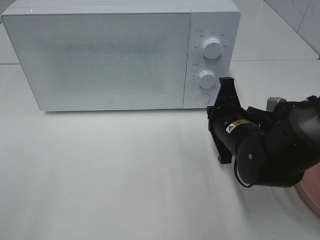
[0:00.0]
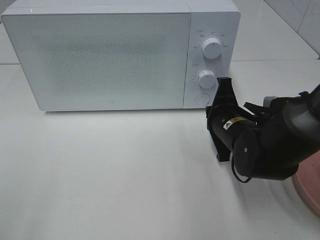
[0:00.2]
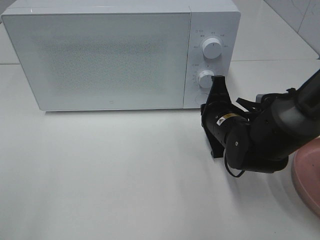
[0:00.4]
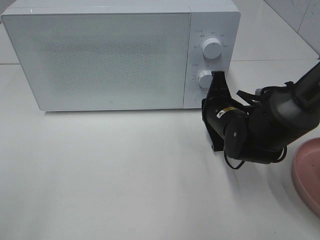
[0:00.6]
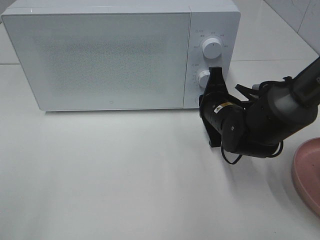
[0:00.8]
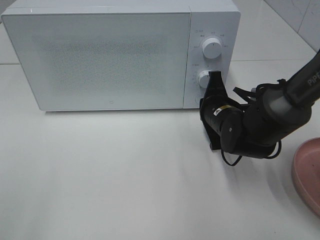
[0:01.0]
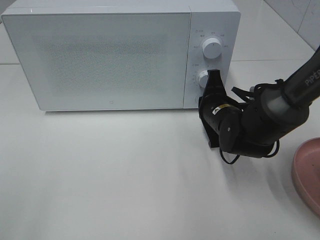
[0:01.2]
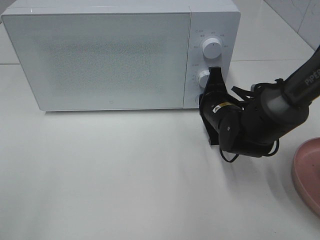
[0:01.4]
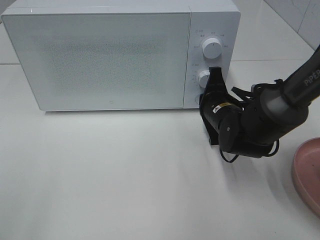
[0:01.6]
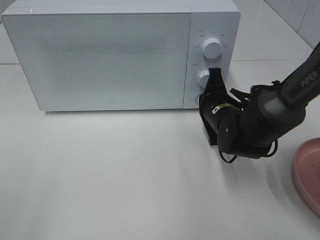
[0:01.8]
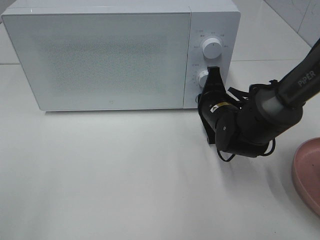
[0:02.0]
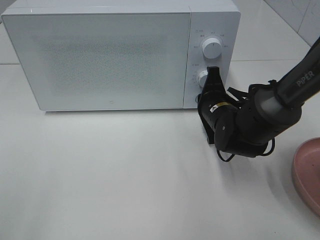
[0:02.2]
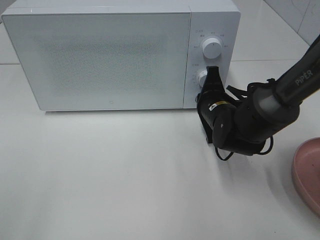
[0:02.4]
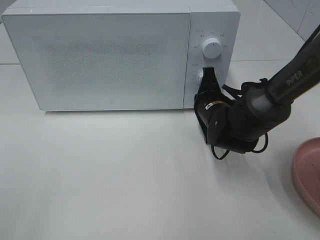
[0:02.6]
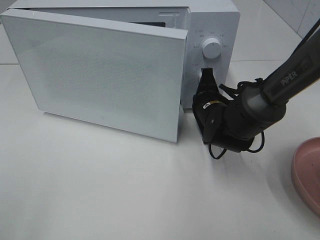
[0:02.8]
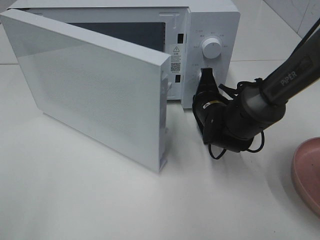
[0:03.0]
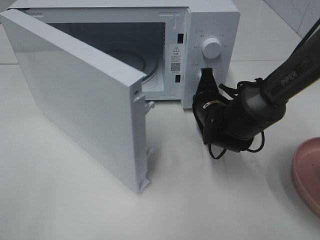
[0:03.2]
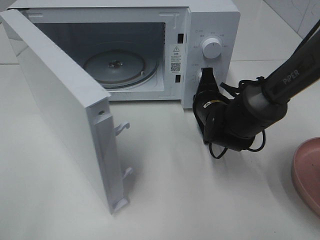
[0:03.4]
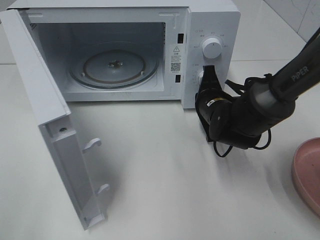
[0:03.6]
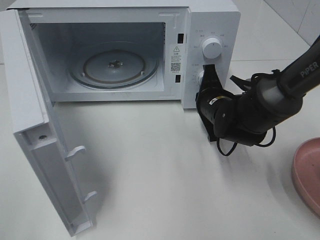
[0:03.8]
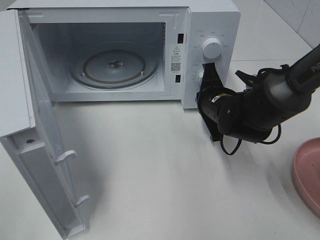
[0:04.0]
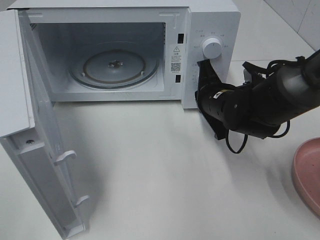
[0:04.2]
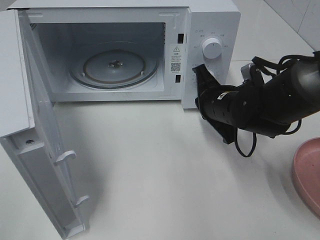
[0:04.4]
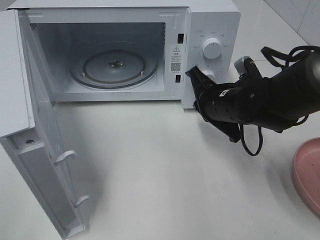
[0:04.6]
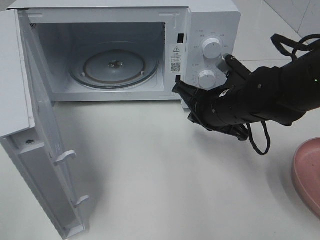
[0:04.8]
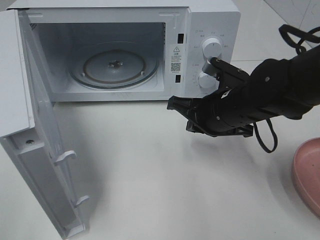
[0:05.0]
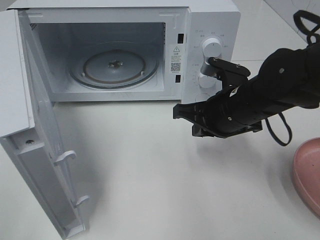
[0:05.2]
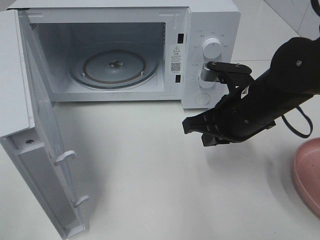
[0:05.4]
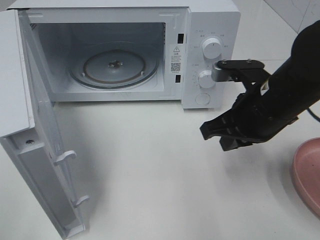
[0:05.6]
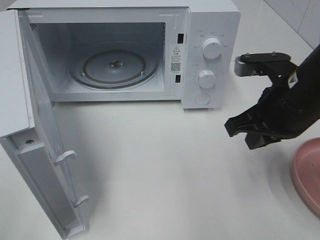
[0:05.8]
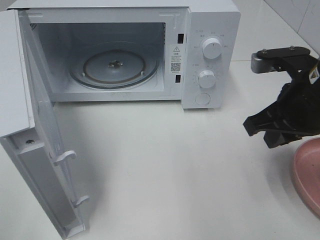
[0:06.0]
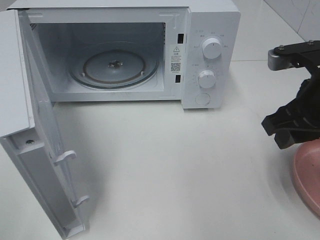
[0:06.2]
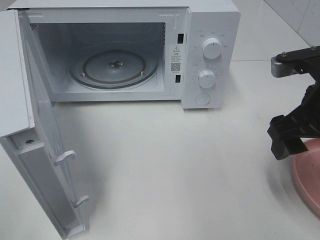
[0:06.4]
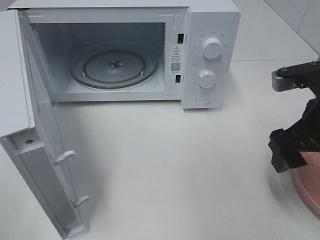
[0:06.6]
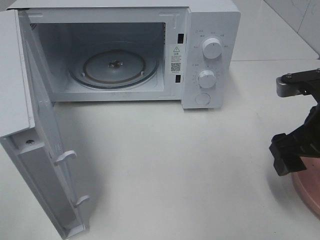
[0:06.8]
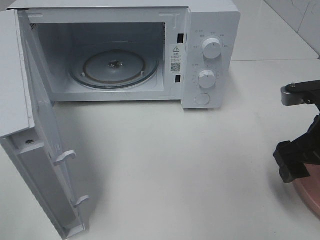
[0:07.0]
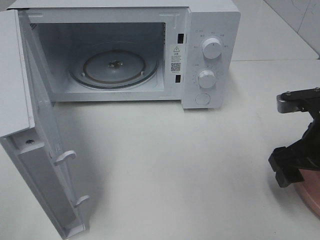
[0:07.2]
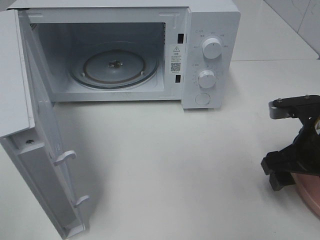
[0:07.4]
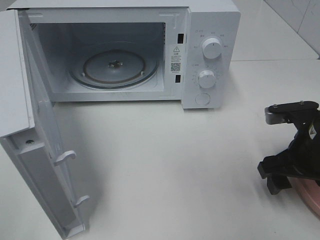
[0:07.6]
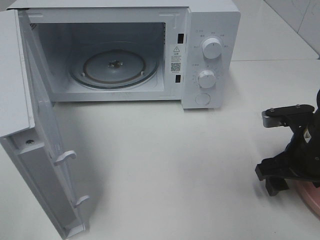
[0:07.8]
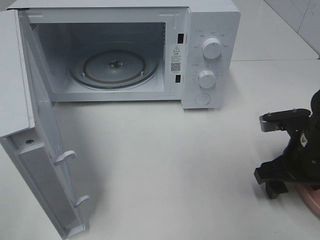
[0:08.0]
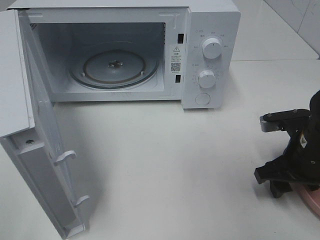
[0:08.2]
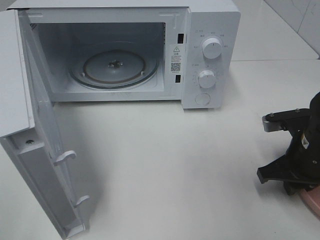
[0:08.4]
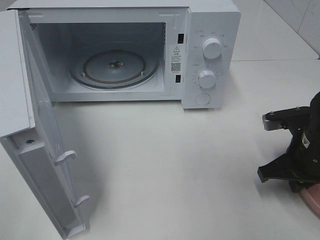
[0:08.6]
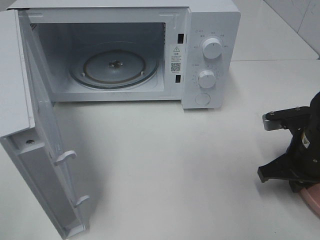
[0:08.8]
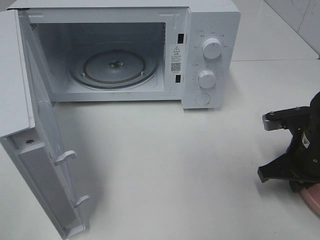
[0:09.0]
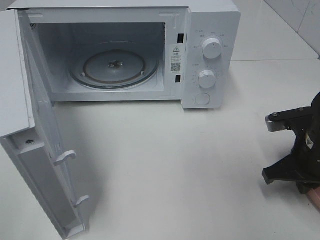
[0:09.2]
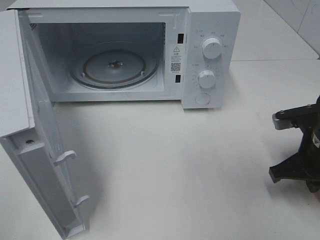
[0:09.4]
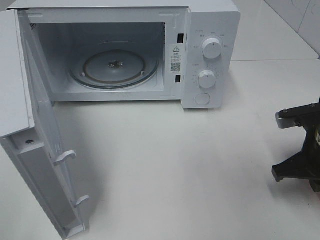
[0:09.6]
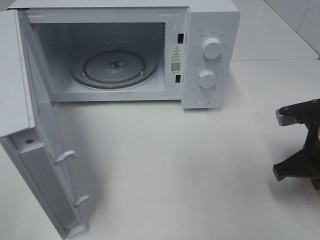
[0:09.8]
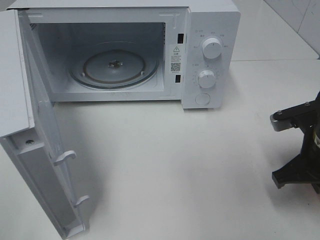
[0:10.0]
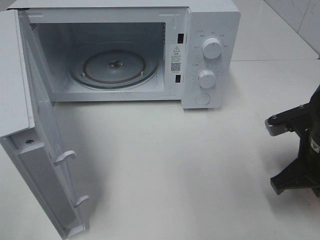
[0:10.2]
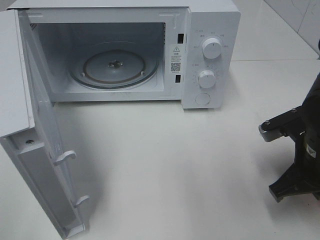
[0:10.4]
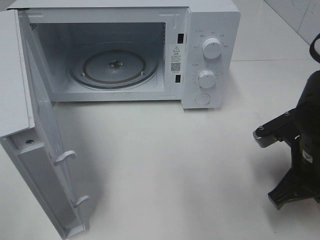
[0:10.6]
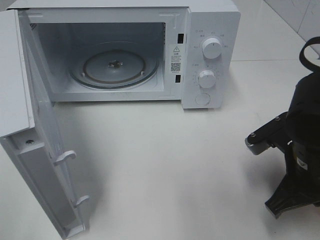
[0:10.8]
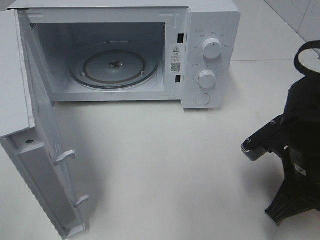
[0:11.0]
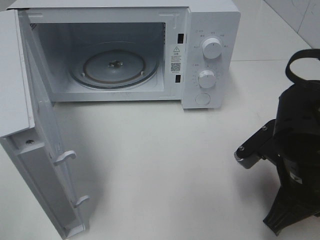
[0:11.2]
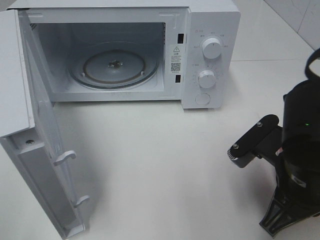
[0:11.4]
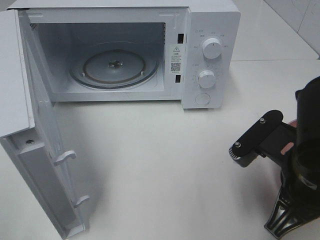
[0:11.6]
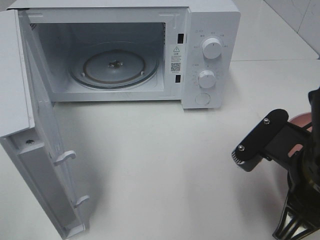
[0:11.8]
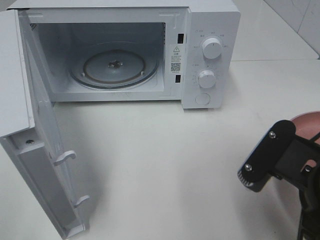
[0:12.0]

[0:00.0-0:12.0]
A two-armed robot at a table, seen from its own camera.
Task of the whole recording: Heat the burger.
Step, 0:00.0 to 0:04.0: Right hand: press the switch.
Step, 0:04.2 to 0:09.2: Right hand: grab the plate with the hamburger.
0:00.0 to 0:01.6: The right gripper shifts some 5 cm forward.
0:03.0 to 0:04.4: The right gripper changes place by roughly 5 cm.
0:04.4 to 0:06.0: The right gripper travels upward, backward and to the right by about 15 cm.
0:06.0 to 0:07.6: The right gripper shifts roughly 10 cm downward, and opens up.
0:07.6 to 0:09.0: The right gripper closes.
0:09.0 to 0:10.4: The grippers make only small movements.
0:10.4 to 0:12.0: The right gripper travels backward, upward and to the left by roughly 15 cm.

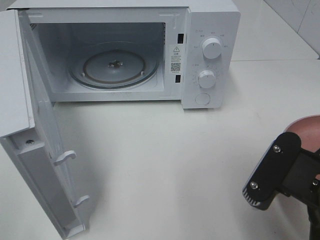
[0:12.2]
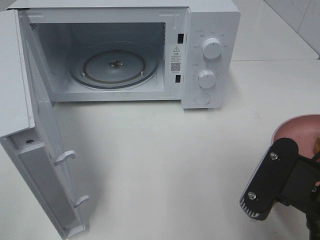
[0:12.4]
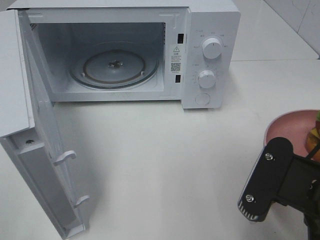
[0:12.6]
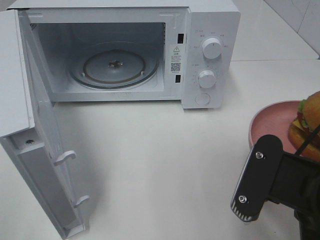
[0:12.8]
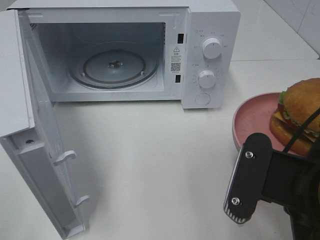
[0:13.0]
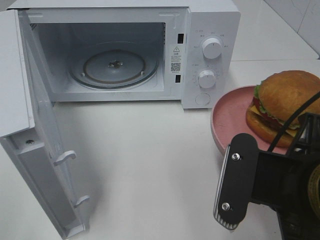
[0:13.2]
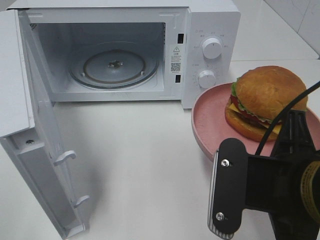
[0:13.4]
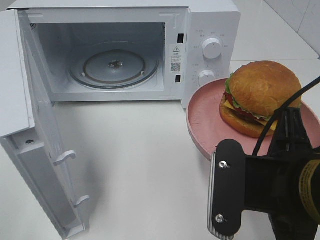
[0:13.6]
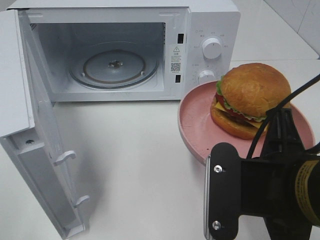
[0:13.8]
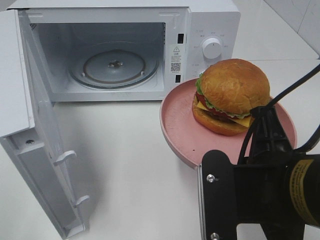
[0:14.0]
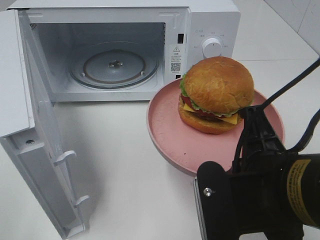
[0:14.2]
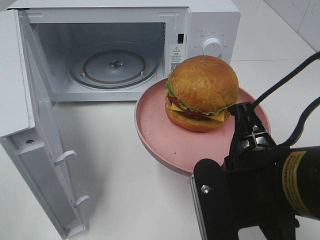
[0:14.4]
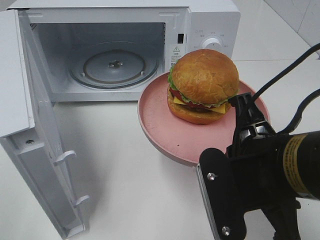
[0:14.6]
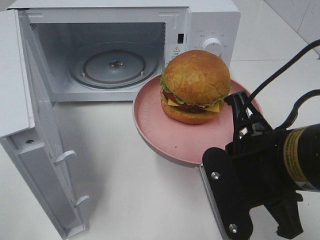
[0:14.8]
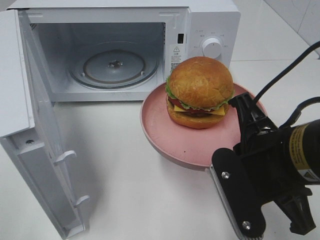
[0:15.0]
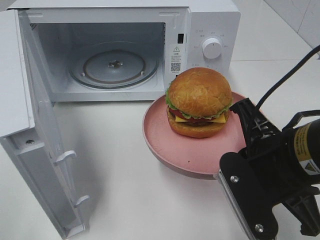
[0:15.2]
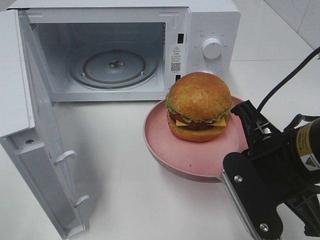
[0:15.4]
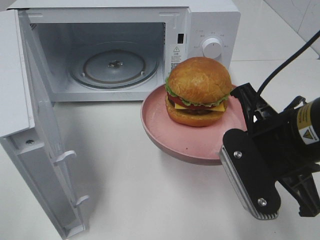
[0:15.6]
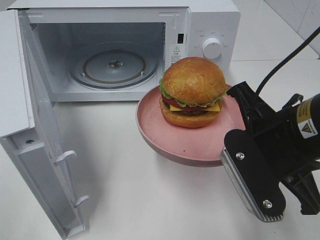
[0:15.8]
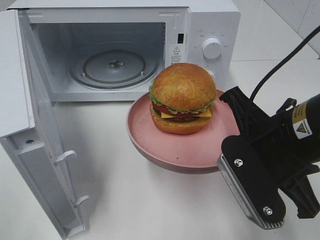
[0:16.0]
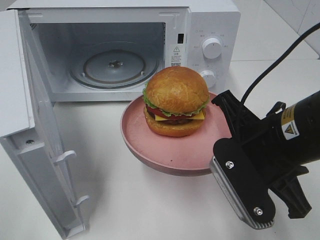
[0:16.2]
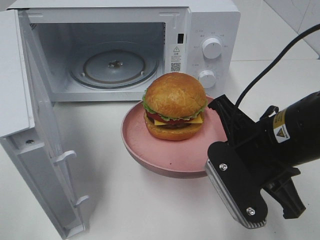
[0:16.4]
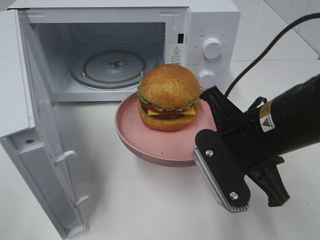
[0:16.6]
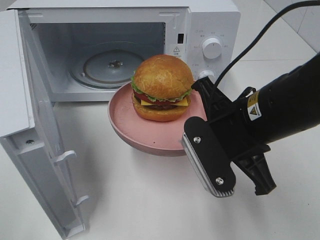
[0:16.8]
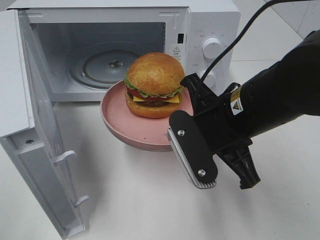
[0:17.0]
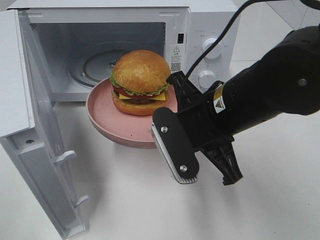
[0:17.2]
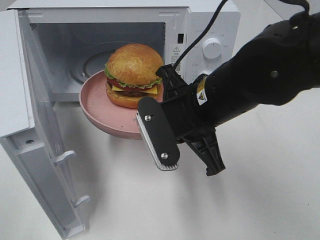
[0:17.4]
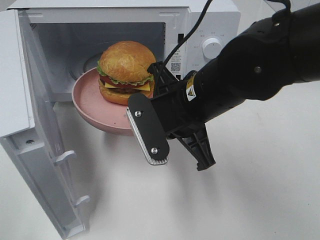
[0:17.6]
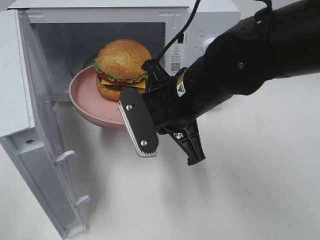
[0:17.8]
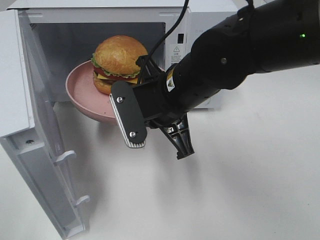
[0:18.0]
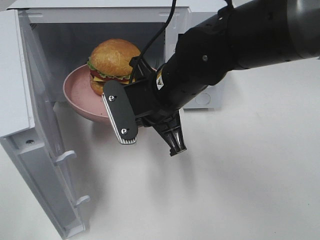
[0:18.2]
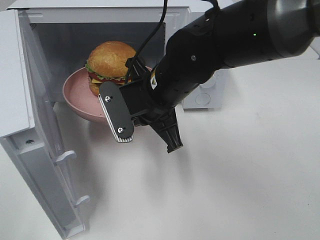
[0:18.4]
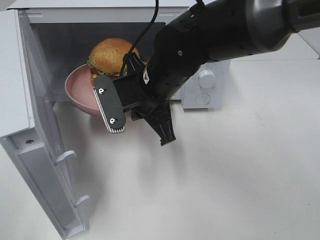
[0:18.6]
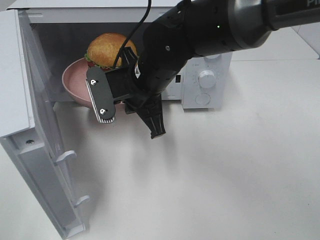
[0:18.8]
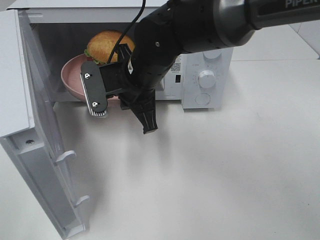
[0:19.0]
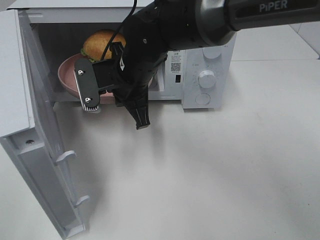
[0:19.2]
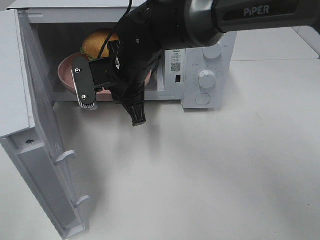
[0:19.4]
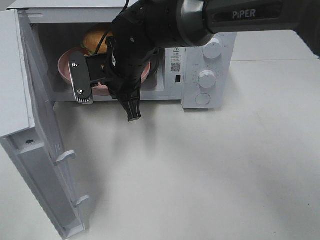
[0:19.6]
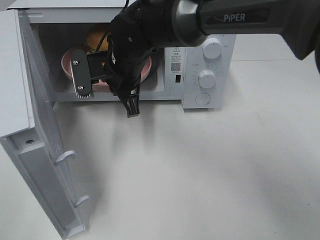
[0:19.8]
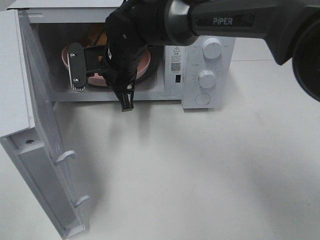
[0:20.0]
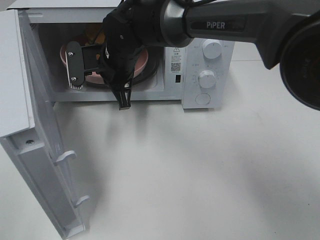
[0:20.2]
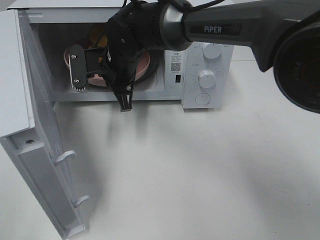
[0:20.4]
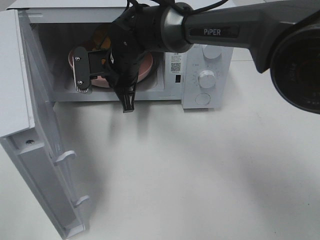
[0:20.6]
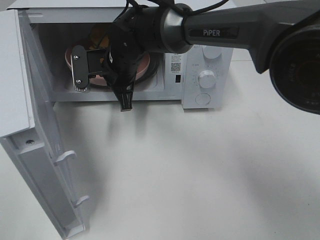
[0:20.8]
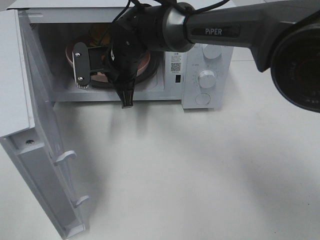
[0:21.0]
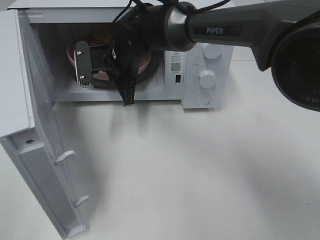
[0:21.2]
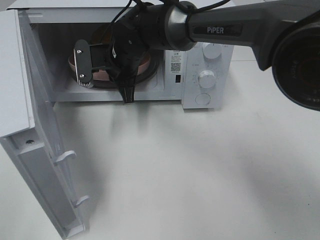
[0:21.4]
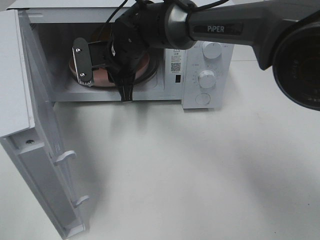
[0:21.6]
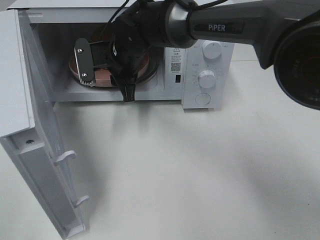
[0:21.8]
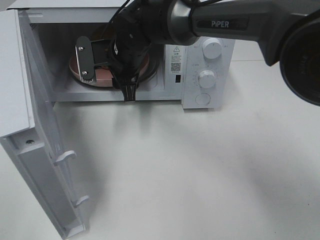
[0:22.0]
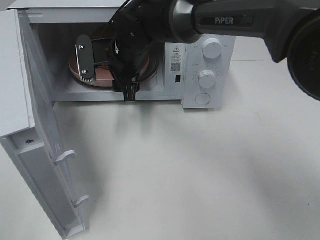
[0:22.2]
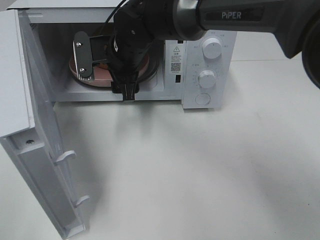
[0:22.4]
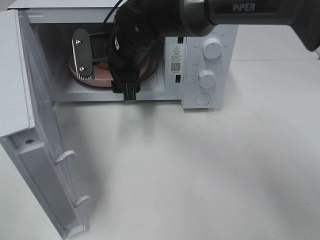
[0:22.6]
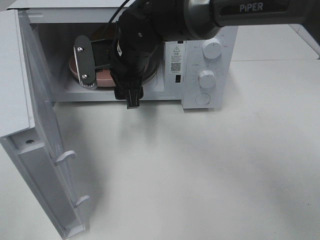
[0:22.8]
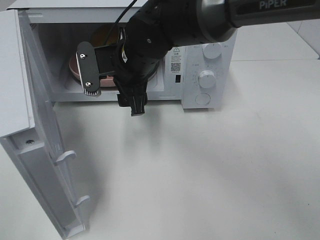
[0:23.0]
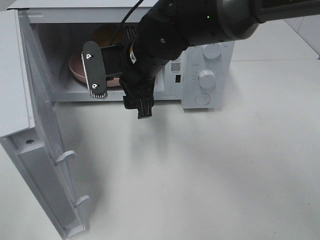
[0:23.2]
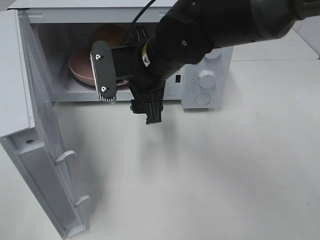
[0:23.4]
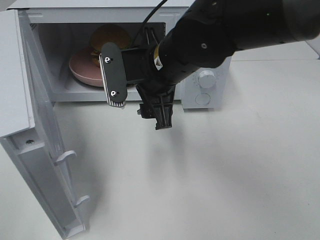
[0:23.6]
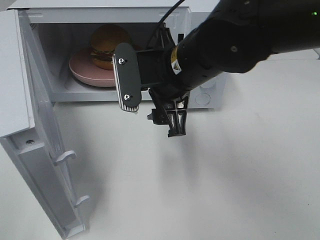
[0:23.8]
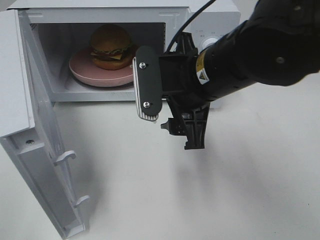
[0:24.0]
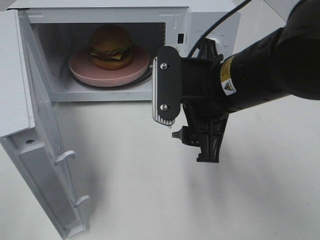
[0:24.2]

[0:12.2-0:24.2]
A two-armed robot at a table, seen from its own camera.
Task of the whole recording: Heat the burger.
Step, 0:12.2 to 0:21.8: Right hand: place the plate in the microwave.
0:13.8 to 0:15.2: The right gripper ends up roughly 5 cm from where it was.
0:16.6 to 0:18.2: The right gripper heads to the left and forward, covering roughly 15 cm.
0:18.2 to 0:19.8: The right gripper shifts roughly 10 cm forward and to the left.
0:19.8 to 0:21.2: The grippers move only a little.
0:21.2 to 0:22.6: The right gripper opens up.
0:22.6 to 0:24.2: The right gripper is displaced backward and to the right by about 20 cm.
